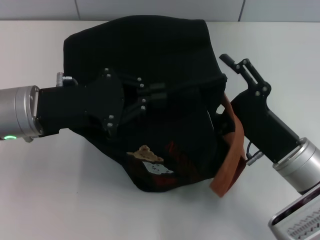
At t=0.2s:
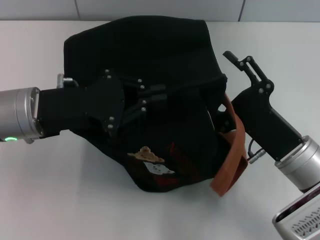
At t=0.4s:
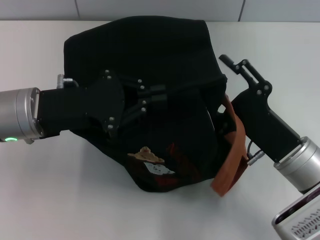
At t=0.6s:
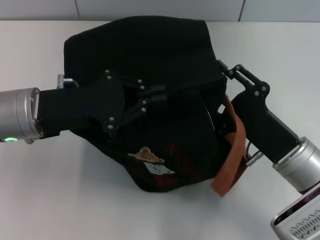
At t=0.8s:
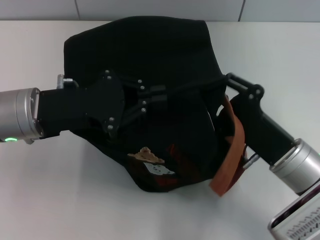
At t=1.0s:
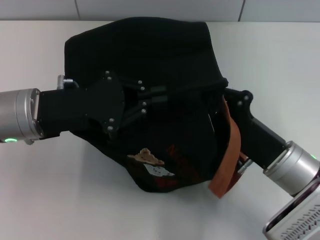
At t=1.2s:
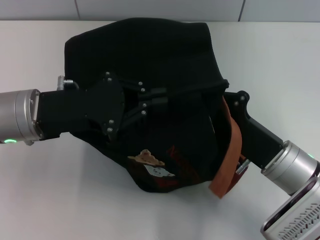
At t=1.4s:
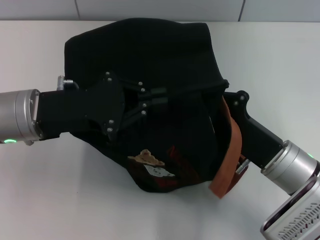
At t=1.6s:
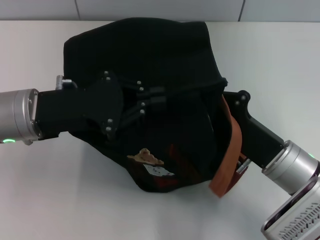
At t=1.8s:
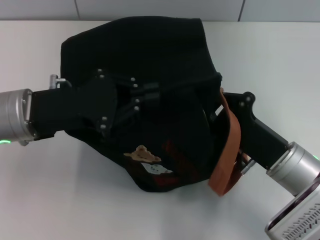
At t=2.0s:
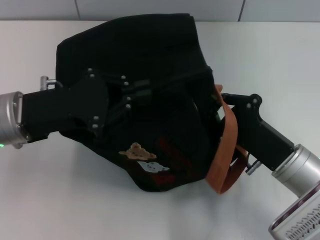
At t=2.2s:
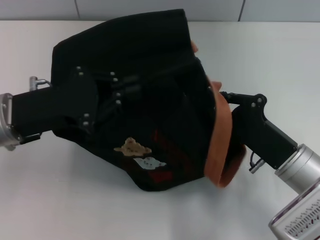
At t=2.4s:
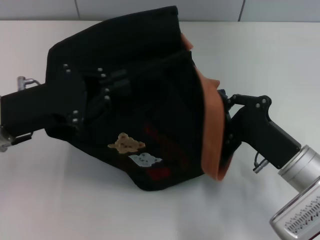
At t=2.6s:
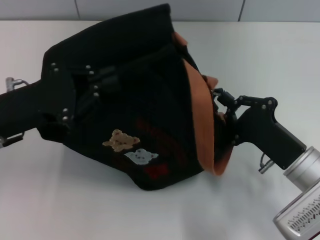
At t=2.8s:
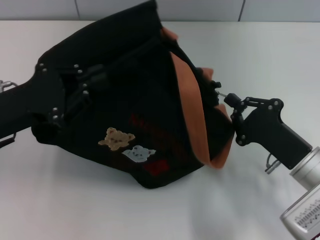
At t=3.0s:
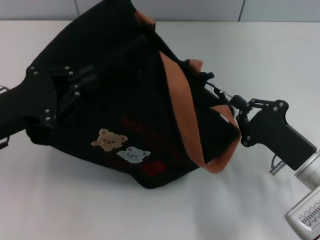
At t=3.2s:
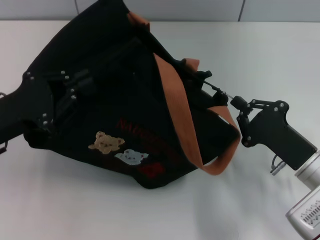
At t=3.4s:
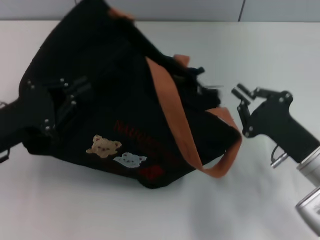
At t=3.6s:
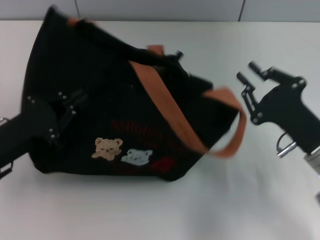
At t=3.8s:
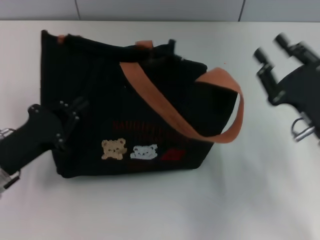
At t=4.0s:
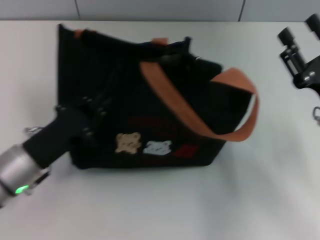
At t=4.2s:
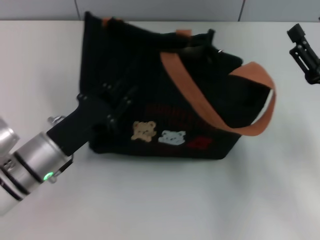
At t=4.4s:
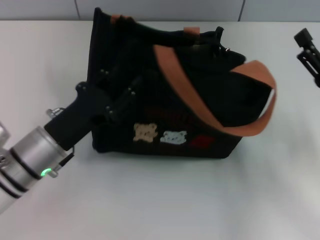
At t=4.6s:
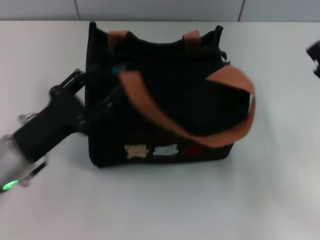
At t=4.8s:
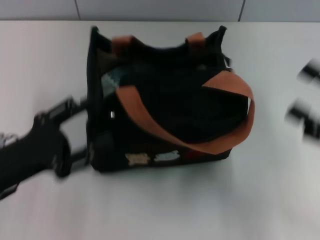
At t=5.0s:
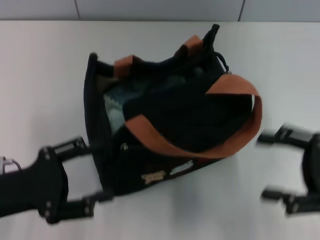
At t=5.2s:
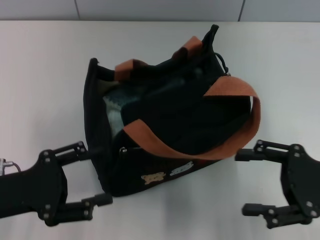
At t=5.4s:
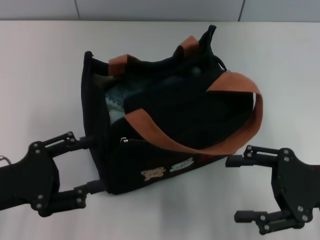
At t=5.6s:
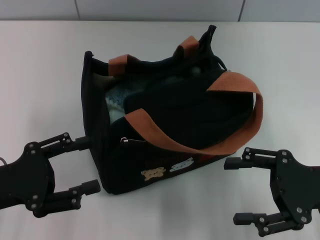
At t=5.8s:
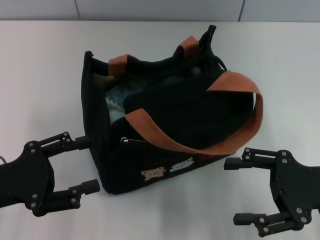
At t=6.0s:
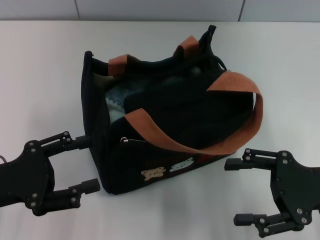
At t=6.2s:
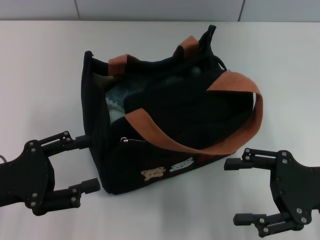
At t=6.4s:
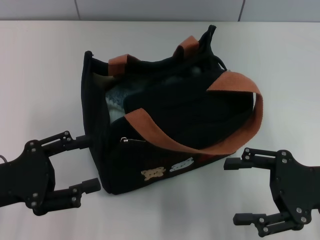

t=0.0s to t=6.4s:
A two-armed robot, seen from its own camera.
Step, t=0.0s to t=3.2s: Pull open the zipper with your right hand.
Step, t=3.6s to t=4.6s: Grab the bag with your left hand.
t=0.0s to t=1.6s: The right gripper closes up.
t=1.6s to t=3.2s: The left gripper moves to the left, about 5 cm. The right gripper heads to the right, covering approximately 5 cm.
t=3.2s to t=4.8s: The left gripper opens. The right gripper travels to the right and upward by roughly 10 cm, and opens its fingers.
t=4.8s to t=6.4s: The right gripper changes place by about 5 cm.

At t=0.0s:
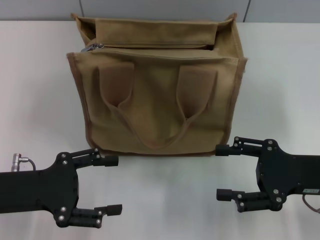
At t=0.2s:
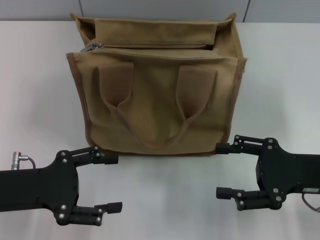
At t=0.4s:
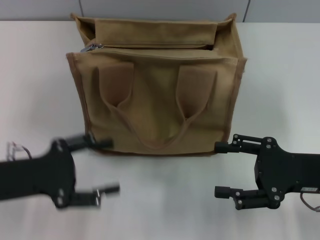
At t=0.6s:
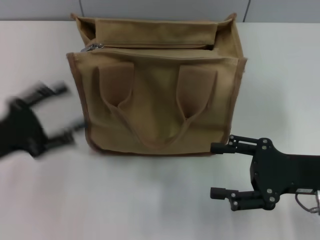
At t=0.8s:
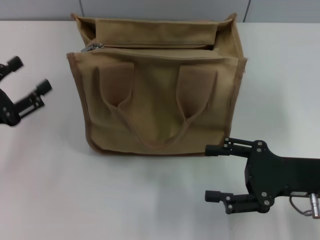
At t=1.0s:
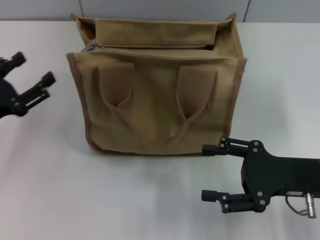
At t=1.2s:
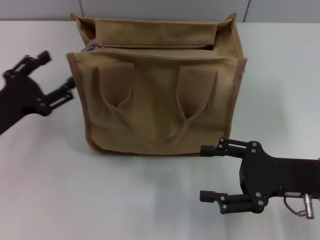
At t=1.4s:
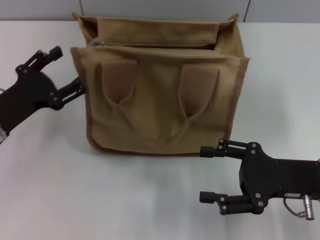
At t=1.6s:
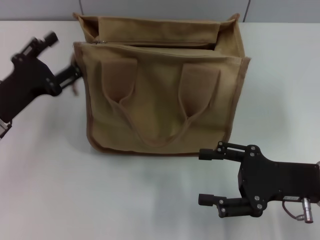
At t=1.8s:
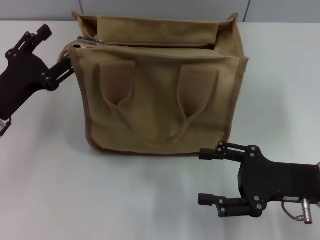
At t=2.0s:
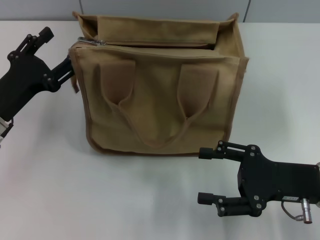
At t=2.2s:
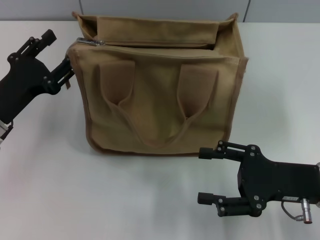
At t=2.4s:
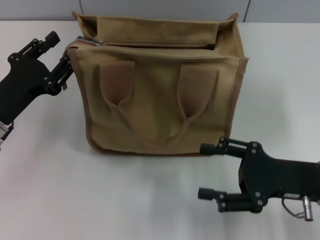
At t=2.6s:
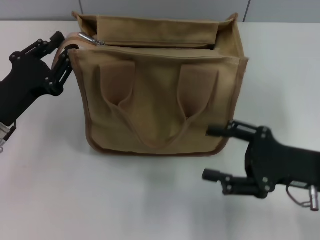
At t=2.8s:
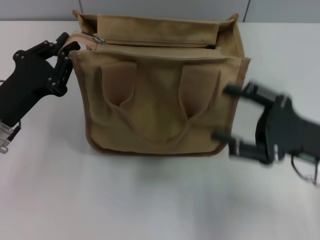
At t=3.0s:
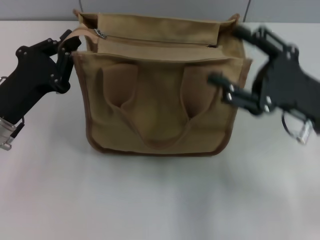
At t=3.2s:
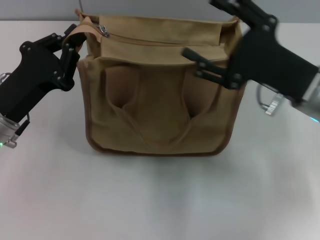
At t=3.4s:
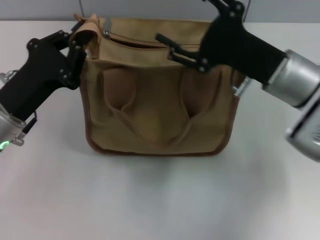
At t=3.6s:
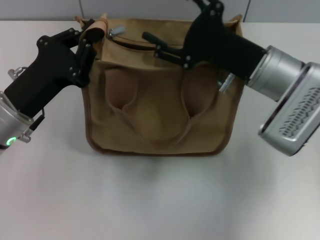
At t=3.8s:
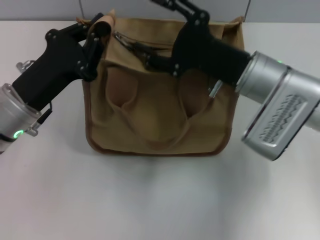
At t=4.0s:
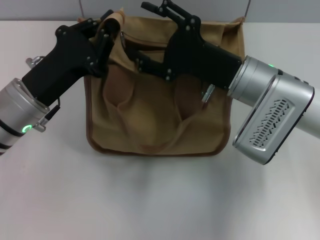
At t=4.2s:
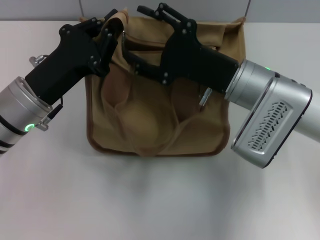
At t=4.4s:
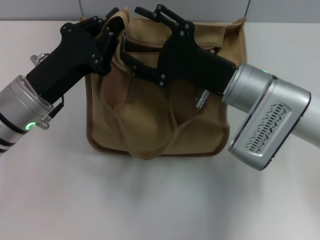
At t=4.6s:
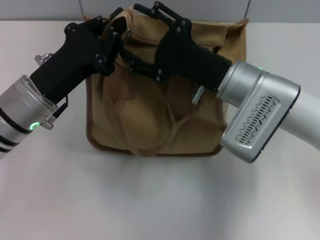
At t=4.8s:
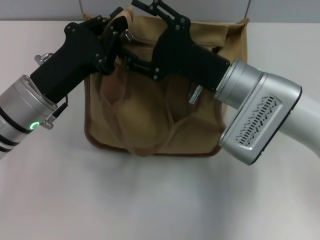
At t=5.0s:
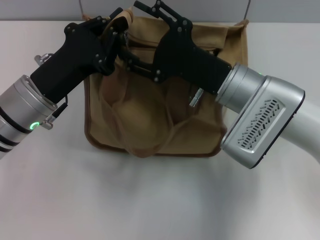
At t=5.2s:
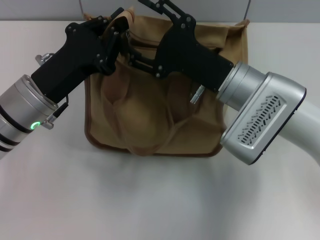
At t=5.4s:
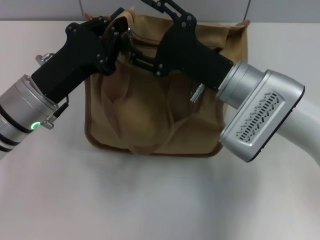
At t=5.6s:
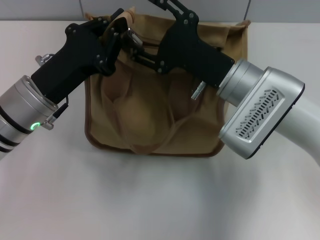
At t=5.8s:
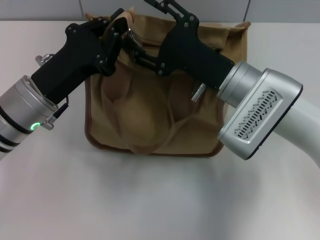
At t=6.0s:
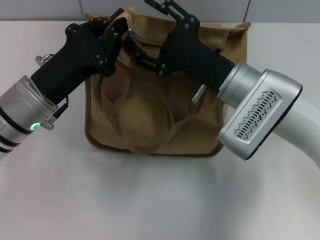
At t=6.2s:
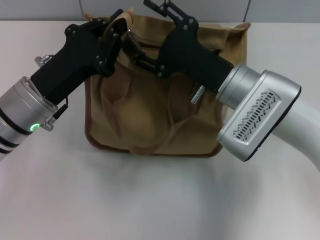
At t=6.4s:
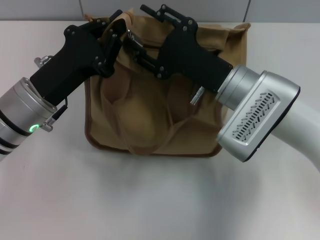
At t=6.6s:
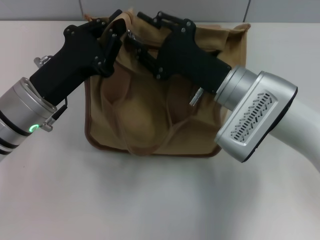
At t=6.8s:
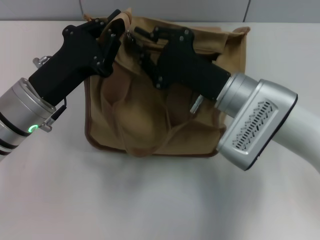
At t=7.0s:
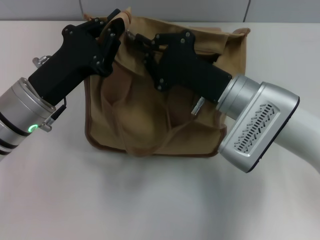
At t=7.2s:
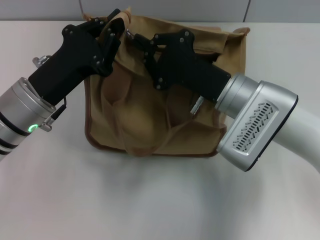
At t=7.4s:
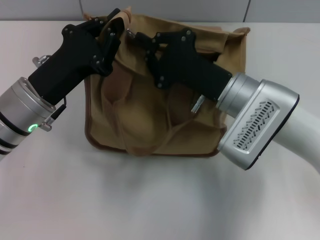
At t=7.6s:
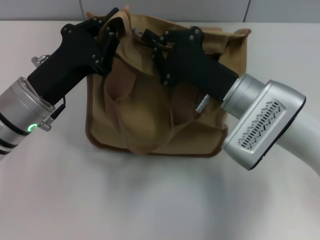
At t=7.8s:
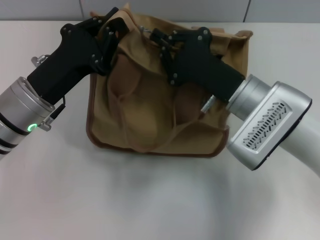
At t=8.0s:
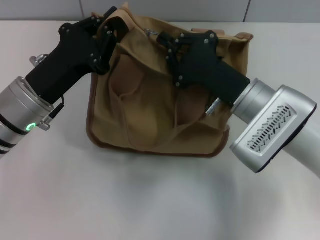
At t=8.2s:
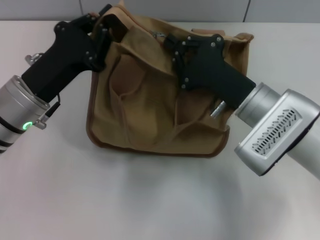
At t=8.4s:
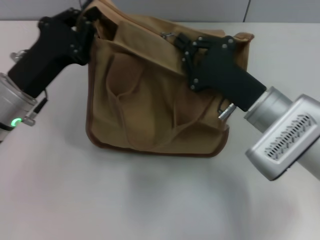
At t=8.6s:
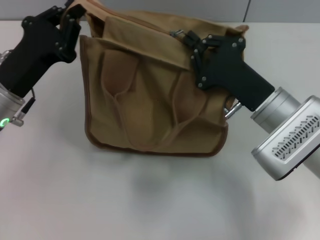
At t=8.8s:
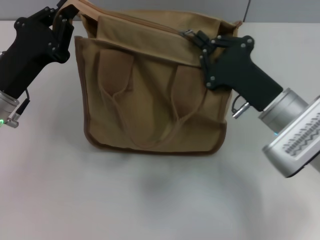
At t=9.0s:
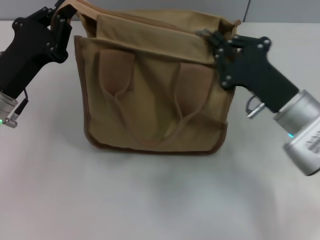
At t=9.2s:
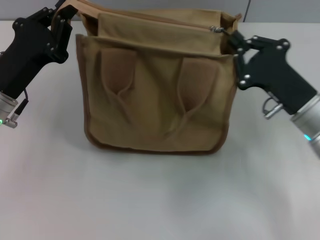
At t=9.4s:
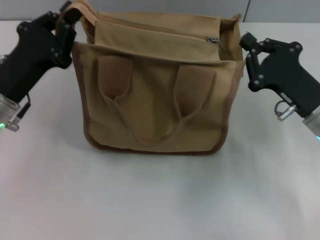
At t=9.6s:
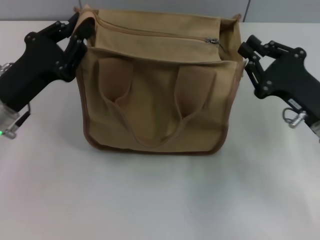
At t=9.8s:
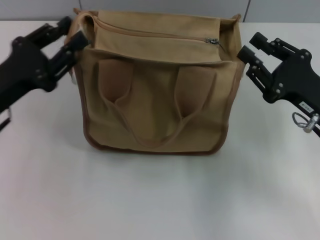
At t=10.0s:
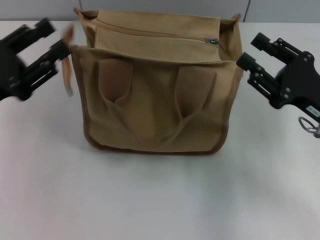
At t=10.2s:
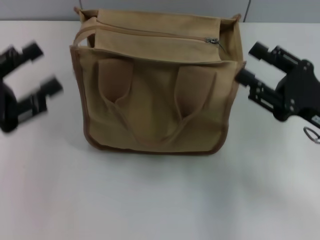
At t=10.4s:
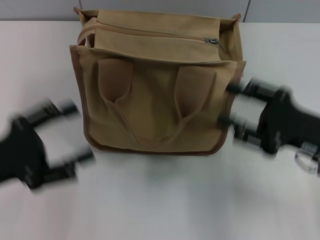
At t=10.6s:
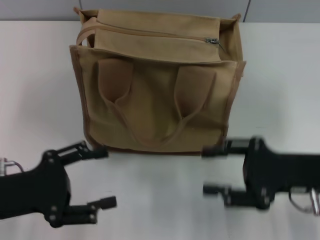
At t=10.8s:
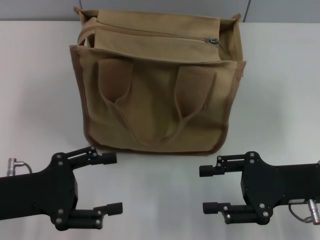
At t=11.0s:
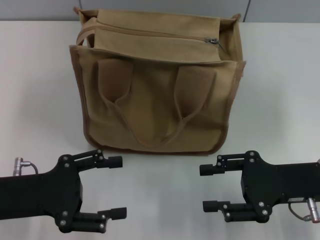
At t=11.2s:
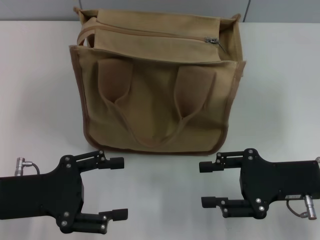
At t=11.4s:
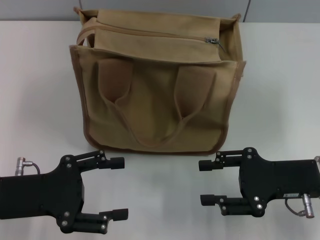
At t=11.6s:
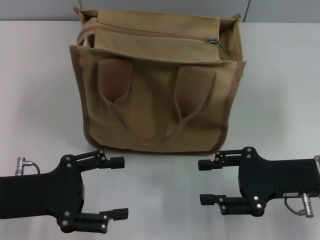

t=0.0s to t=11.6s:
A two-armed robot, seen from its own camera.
Step, t=0.0s to t=9.0s: Pull up the zipper with your right hand.
Step, t=9.4s to t=9.8s: Grab the zipper with your left hand.
t=0.0s to t=1.4s: The left gripper moves forward, some 5 cm.
t=1.4s to t=2.8s: The left gripper closes up.
t=2.8s to t=4.4s: The right gripper is displaced to the left and forward by some 15 cm. The left gripper travels to the right by about 5 cm.
t=4.4s to t=5.8s: The grippers make only small movements.
t=5.8s to t=7.2s: The right gripper closes up.
t=7.2s to t=8.8s: The right gripper travels to the right by approximately 5 cm.
t=8.8s to t=10.2s: The right gripper shifts about 10 cm to the right, and opens its fingers; the left gripper heads backward and to the left, covering about 10 cm, and opens.
t=10.2s to t=11.6s: The left gripper is displaced to the right by about 5 cm, and opens up.
